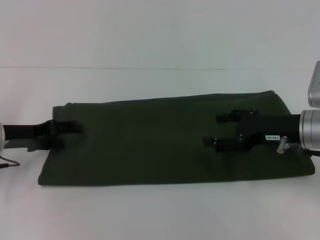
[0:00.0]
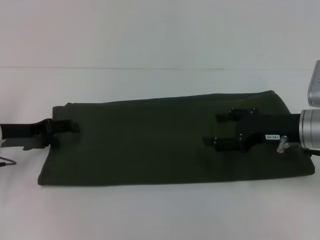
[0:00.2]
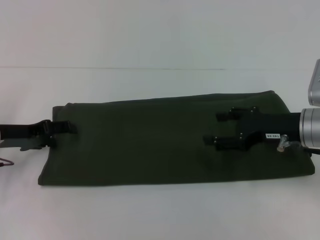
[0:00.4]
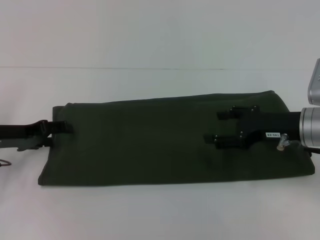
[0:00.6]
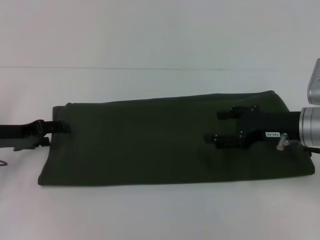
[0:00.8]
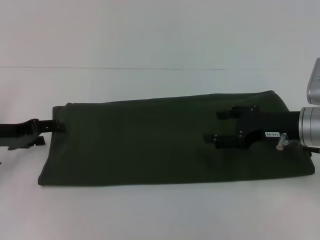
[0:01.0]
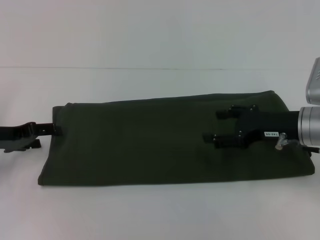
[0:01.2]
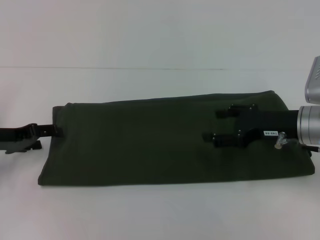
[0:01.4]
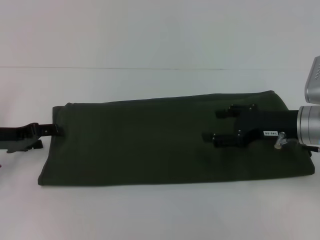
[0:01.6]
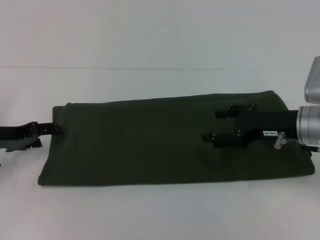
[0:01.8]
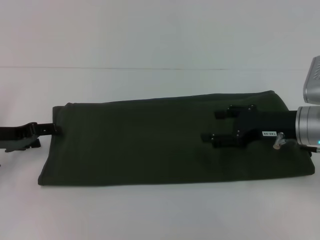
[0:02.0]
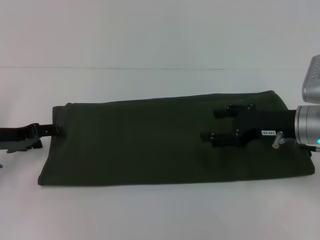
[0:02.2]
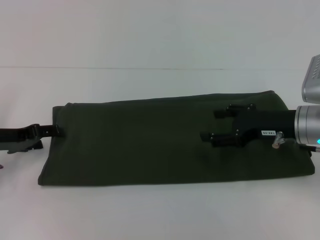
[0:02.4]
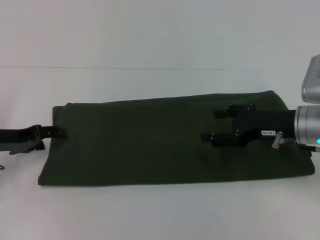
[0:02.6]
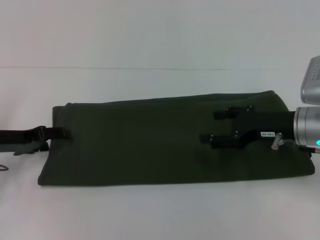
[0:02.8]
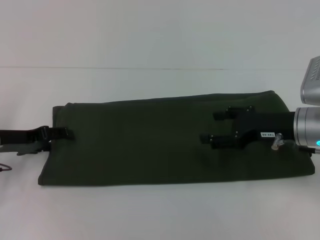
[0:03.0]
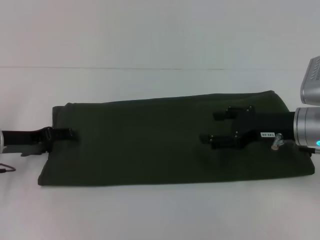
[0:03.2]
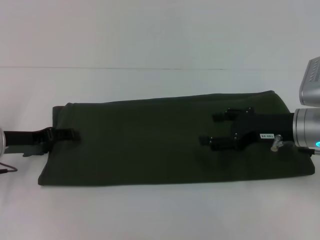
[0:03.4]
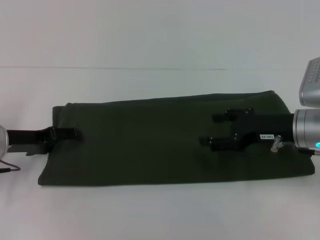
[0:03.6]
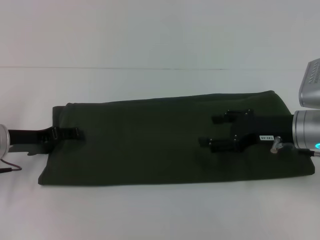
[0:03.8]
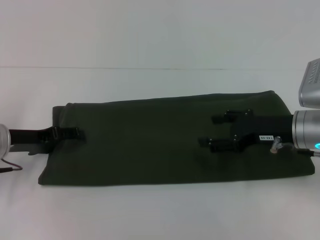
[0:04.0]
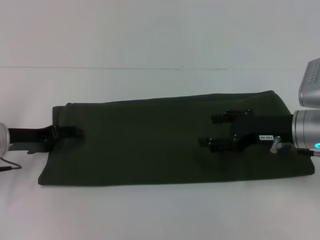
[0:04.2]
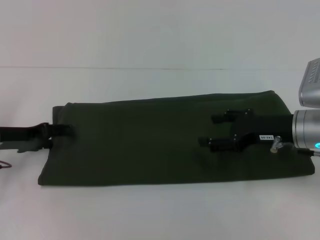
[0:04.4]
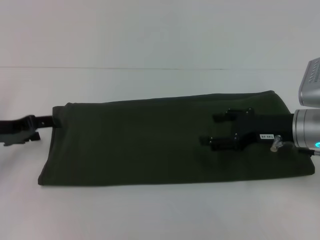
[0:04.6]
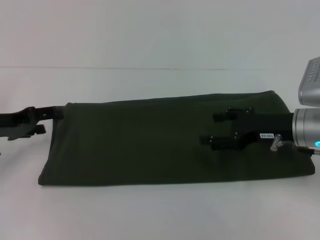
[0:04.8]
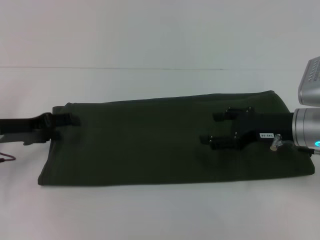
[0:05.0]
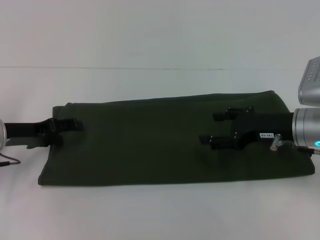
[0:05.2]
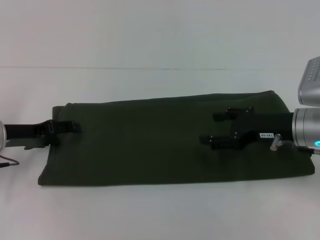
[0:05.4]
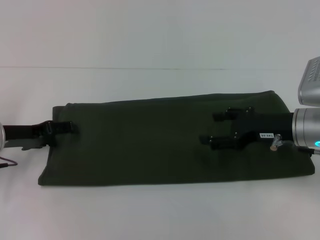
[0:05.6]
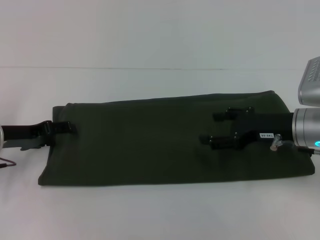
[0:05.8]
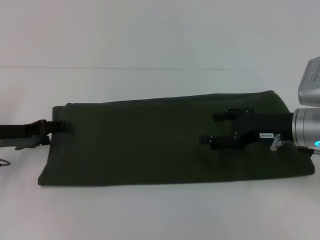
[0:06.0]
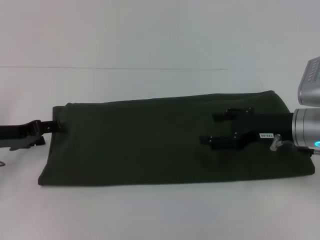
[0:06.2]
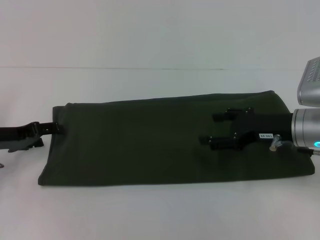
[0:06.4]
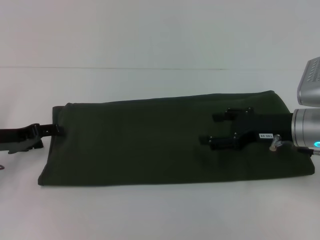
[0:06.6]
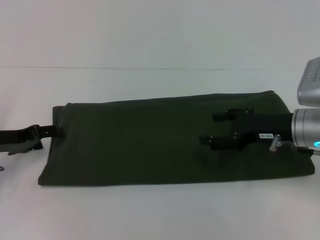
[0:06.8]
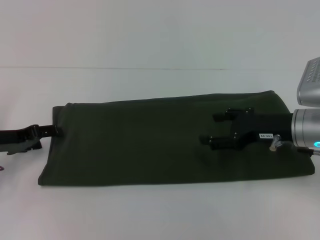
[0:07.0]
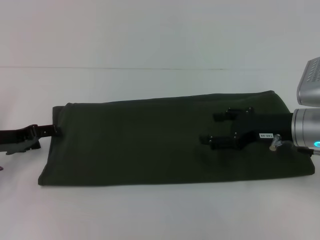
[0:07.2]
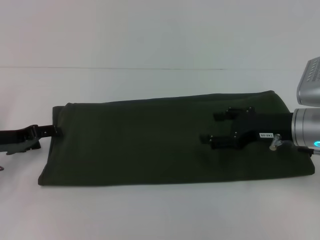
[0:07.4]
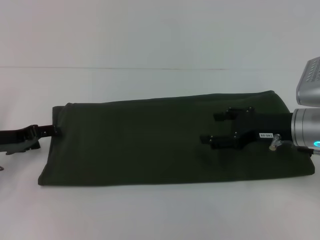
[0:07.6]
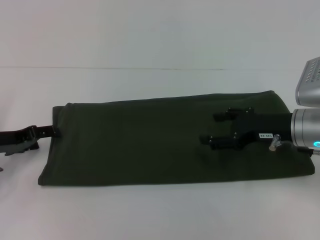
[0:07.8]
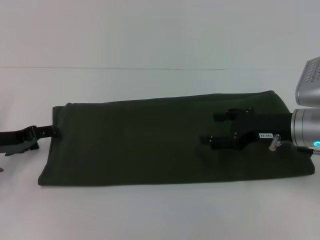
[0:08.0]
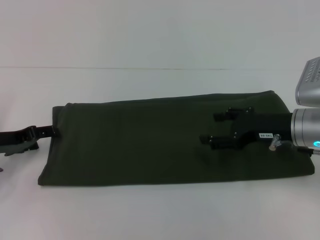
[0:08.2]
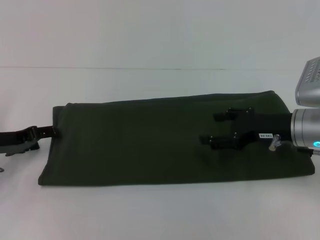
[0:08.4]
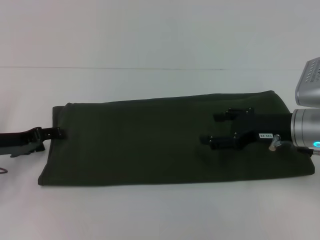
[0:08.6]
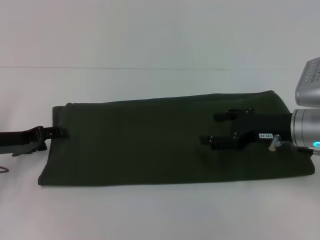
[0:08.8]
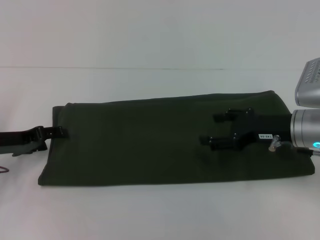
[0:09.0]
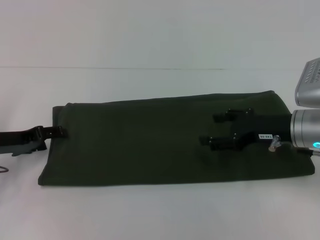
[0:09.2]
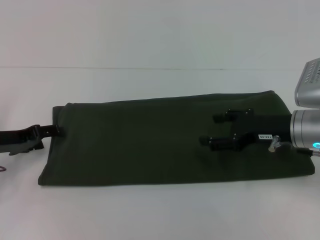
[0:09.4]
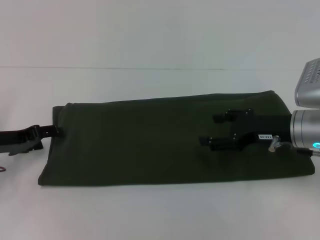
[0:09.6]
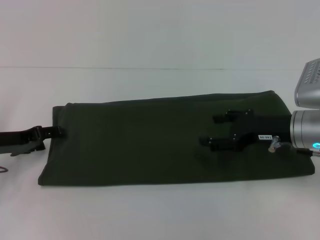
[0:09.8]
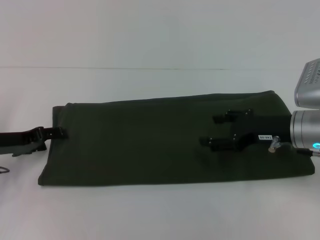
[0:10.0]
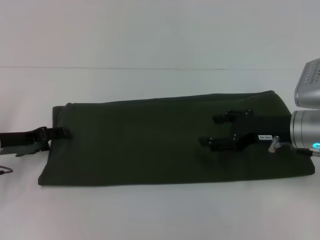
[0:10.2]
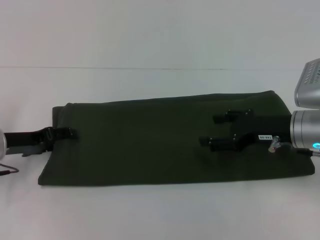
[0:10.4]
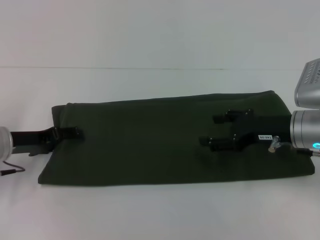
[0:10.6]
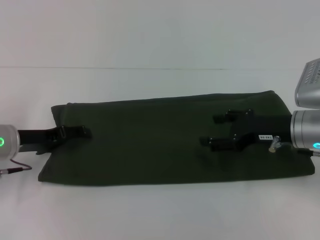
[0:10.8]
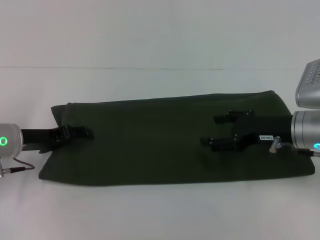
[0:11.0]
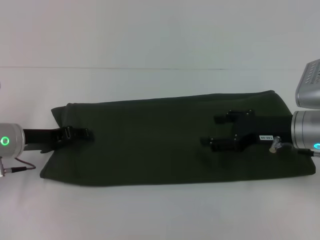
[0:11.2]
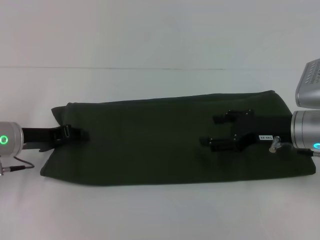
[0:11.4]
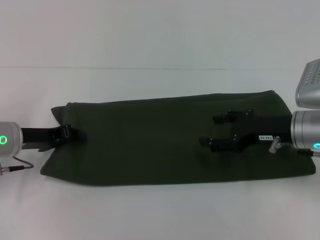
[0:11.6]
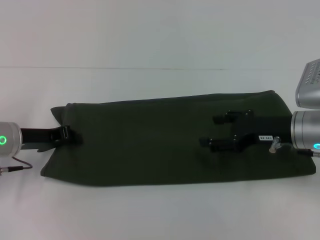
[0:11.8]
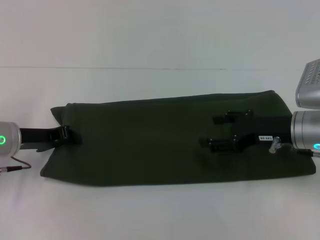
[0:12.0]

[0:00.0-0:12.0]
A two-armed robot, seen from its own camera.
0.0 to 7.6 s: The grippers move only a little.
7.6 to 9.0 s: Both grippers stay put.
9.0 to 10.4 s: The two grippers keep their place.
10.4 to 12.0 s: The left gripper closes up.

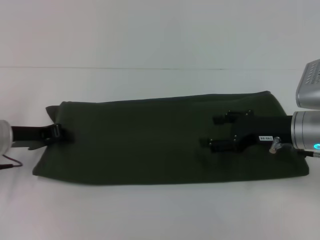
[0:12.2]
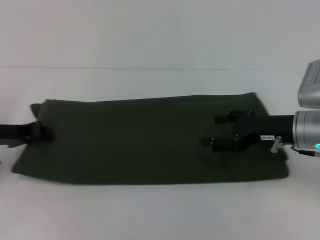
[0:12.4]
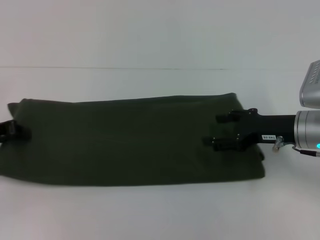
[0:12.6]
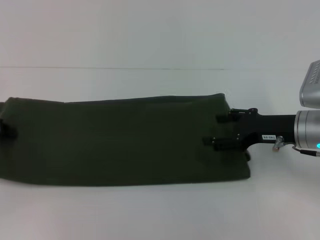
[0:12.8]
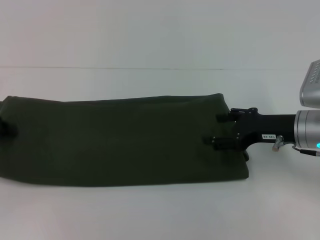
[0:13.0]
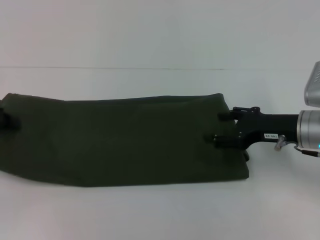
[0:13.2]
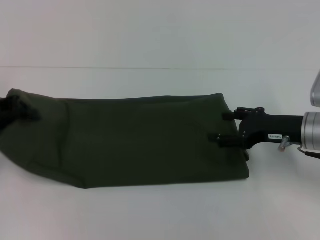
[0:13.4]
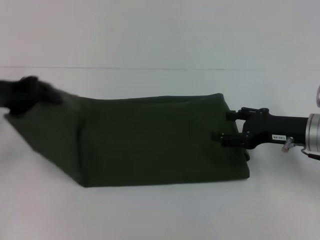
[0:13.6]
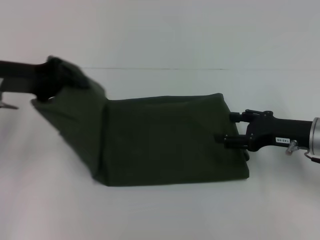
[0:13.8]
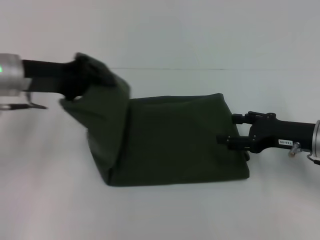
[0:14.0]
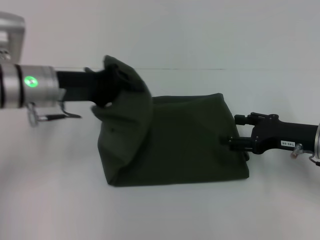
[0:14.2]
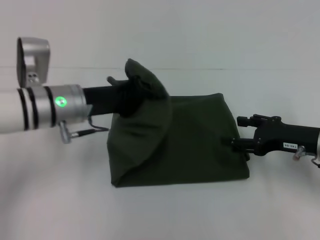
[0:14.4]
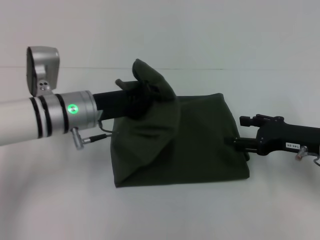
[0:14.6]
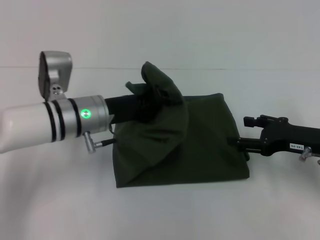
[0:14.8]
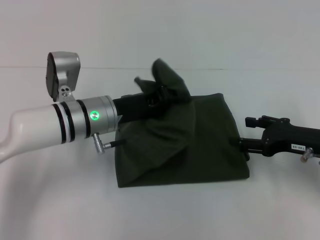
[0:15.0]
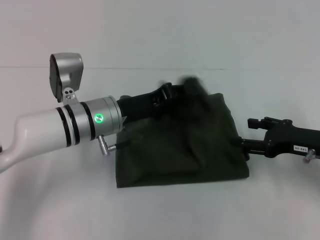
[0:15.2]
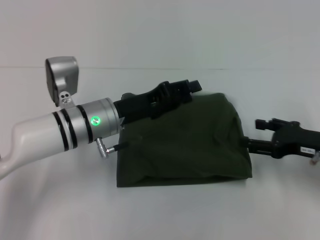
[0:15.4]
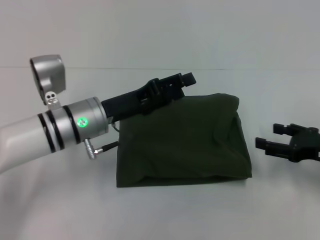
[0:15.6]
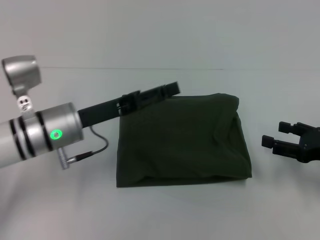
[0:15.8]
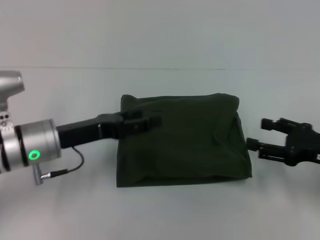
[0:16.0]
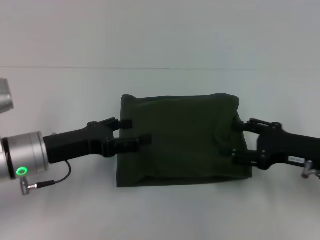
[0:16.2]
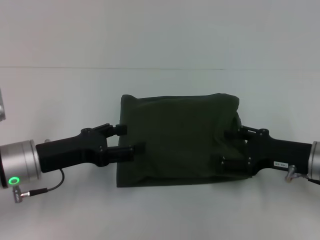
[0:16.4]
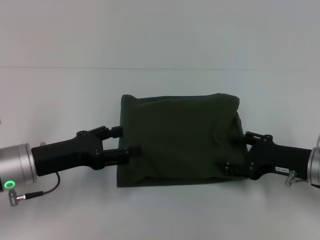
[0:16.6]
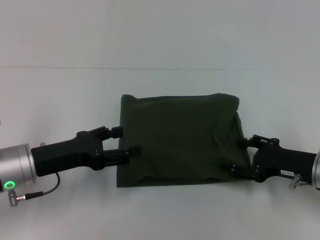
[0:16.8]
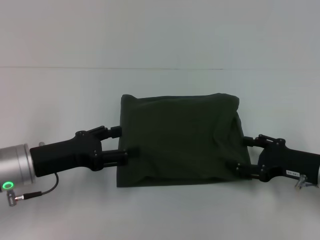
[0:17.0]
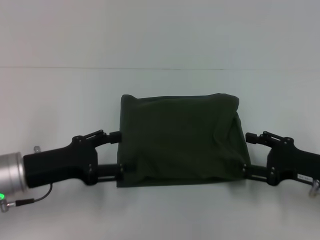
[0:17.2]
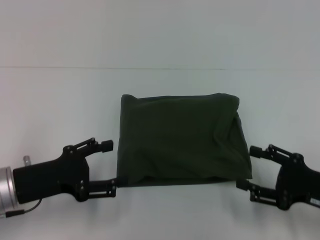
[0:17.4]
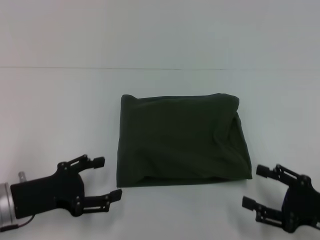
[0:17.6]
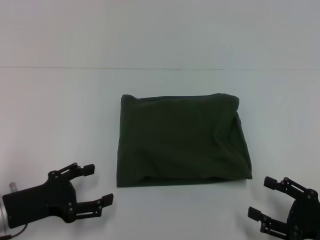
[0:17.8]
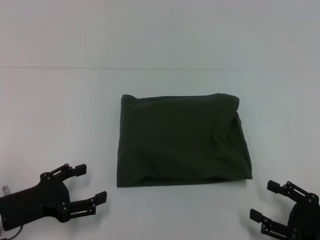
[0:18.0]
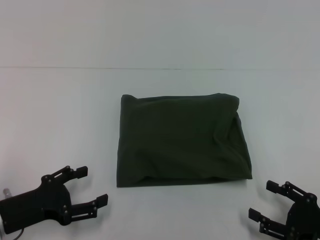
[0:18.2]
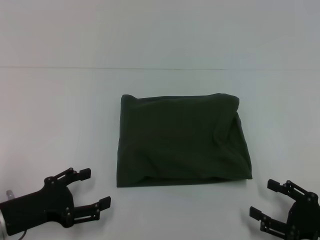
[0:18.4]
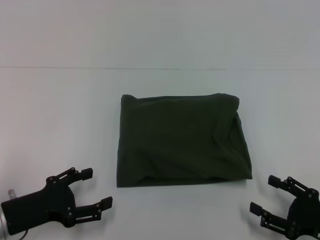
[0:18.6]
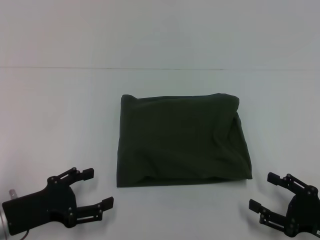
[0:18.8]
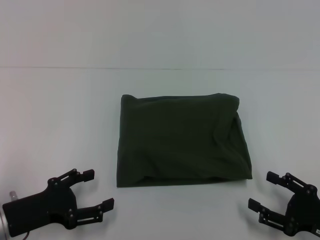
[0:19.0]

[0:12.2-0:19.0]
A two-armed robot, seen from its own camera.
Step, 12.2 to 15.4 s: Fold the clothes with your left hand.
12.2 to 13.6 s: The left gripper moves upward, approximately 10 cm.
13.6 to 15.0 s: The left gripper is displaced to the right and downward by some 20 cm.
15.0 to 16.2 s: The left gripper goes roughly 10 cm to the left and backward, and opens its fingers.
16.2 to 17.6 s: The right gripper shifts approximately 10 cm backward. The left gripper travels backward by roughly 5 cm.
17.6 to 19.0 s: The grippers move only a little.

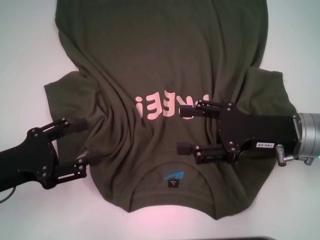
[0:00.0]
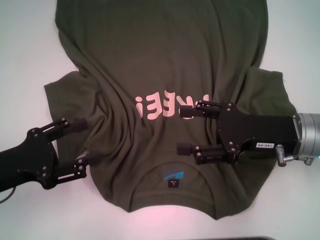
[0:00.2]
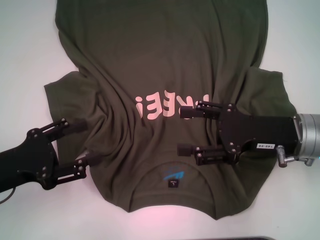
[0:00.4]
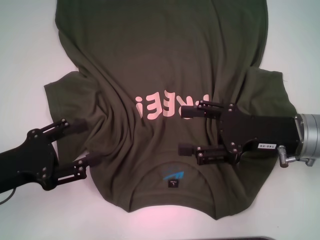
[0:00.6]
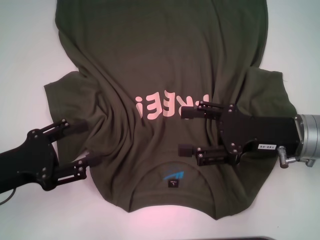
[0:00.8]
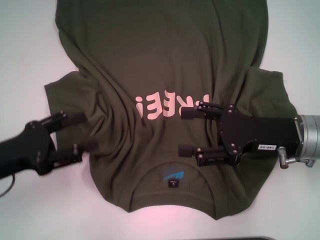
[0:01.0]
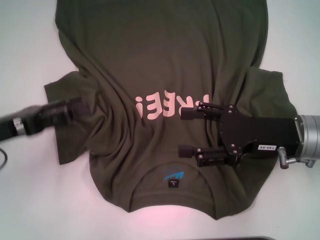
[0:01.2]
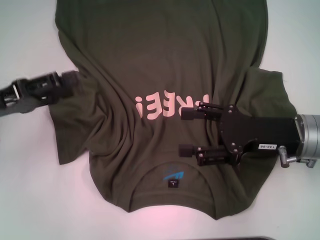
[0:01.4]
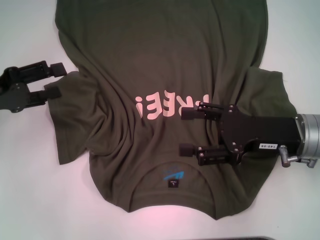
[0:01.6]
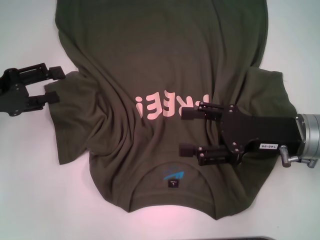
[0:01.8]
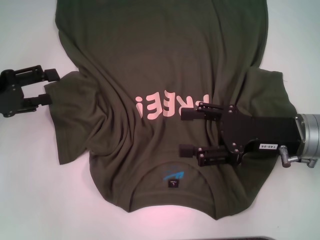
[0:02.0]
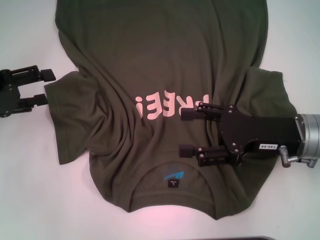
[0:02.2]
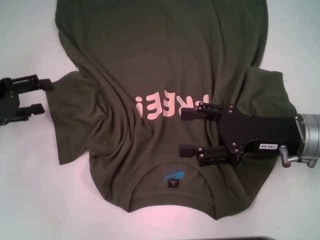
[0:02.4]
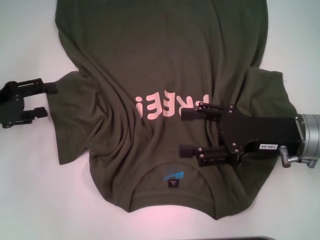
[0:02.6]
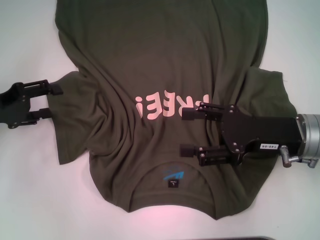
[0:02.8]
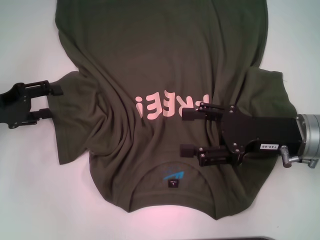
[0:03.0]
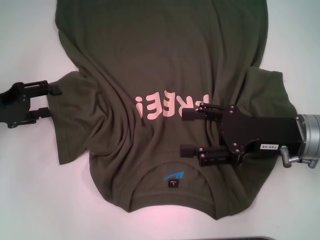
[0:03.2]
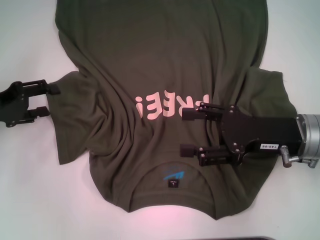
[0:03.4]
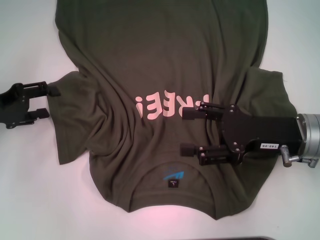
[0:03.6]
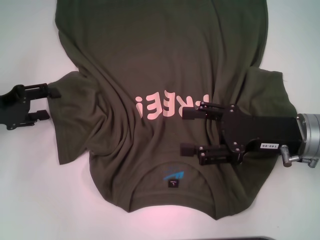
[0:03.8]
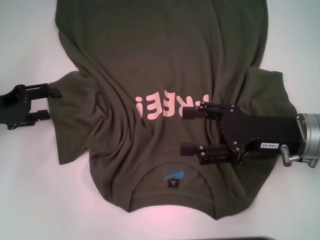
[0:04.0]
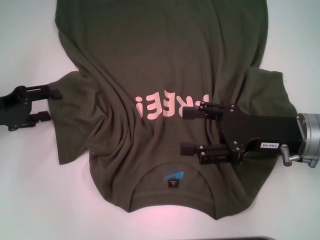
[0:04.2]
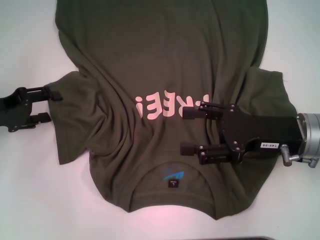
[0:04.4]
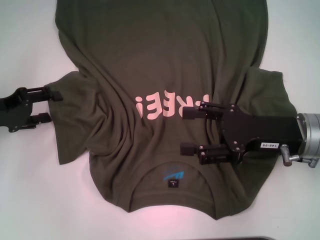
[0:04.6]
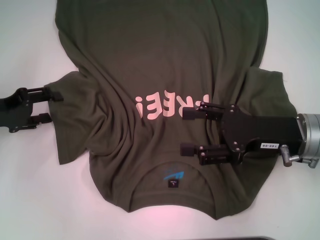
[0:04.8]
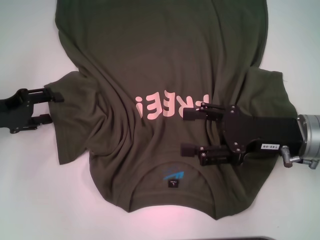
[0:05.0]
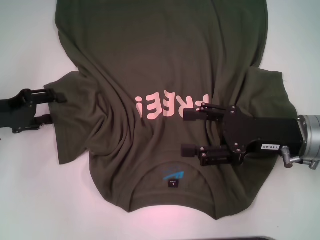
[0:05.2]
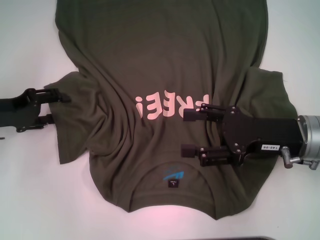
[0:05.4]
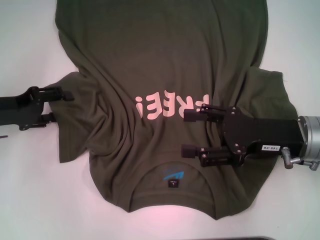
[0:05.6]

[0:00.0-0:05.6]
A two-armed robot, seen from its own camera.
0.0 to 1.4 s: The left gripper travels forward by some 5 cm.
2.8 to 4.2 s: Both grippers stay put.
4.2 to 5.6 s: The grippers stay close to where they were, moving slightly.
